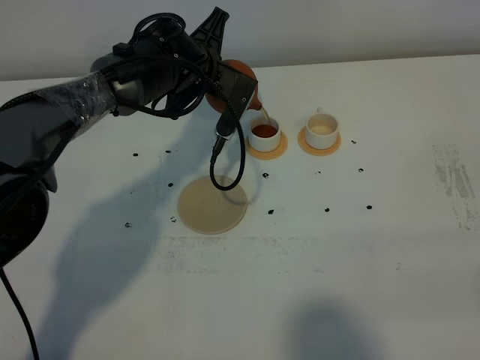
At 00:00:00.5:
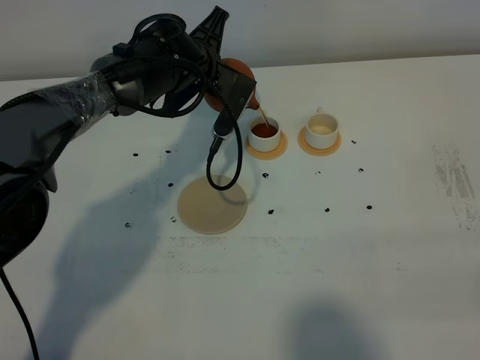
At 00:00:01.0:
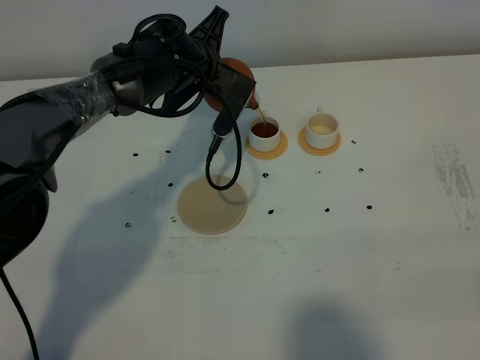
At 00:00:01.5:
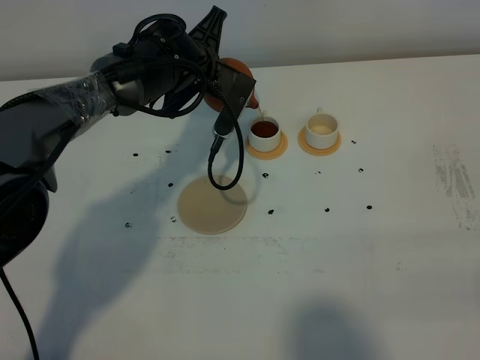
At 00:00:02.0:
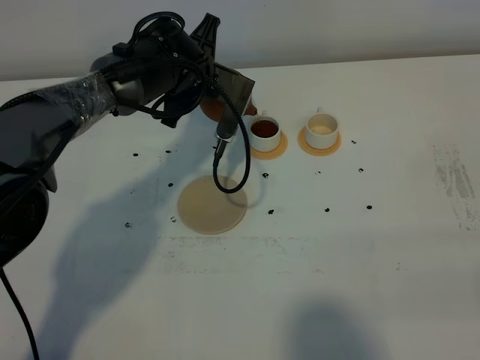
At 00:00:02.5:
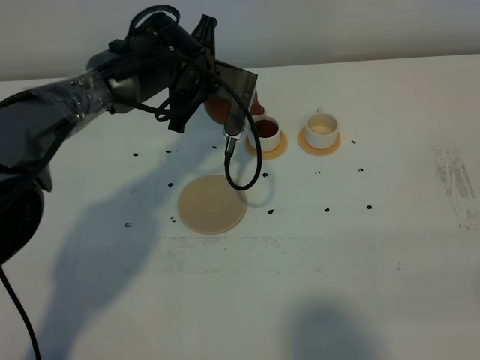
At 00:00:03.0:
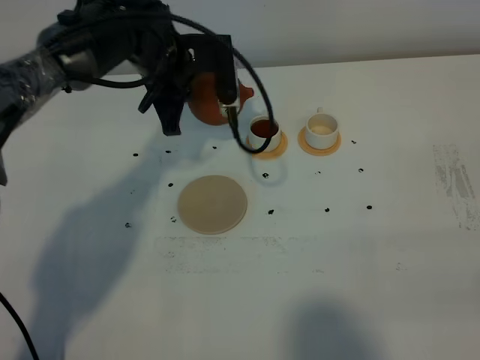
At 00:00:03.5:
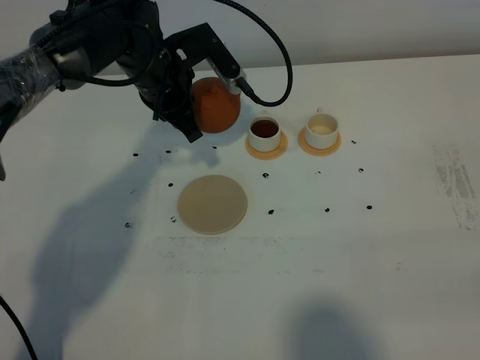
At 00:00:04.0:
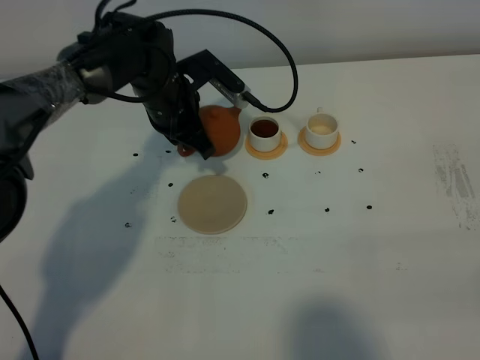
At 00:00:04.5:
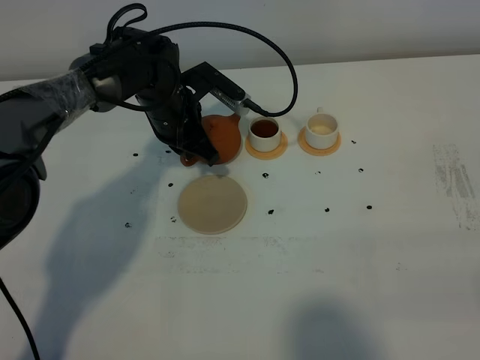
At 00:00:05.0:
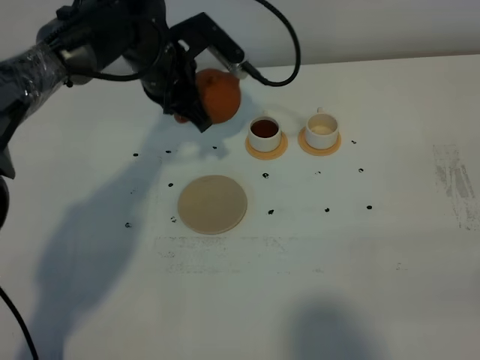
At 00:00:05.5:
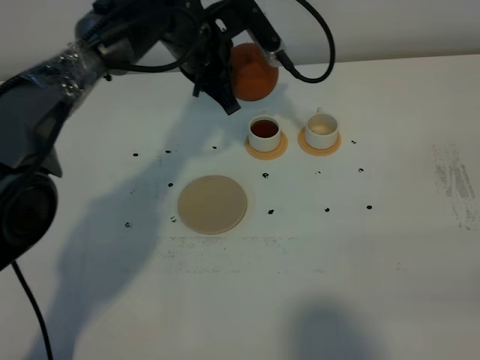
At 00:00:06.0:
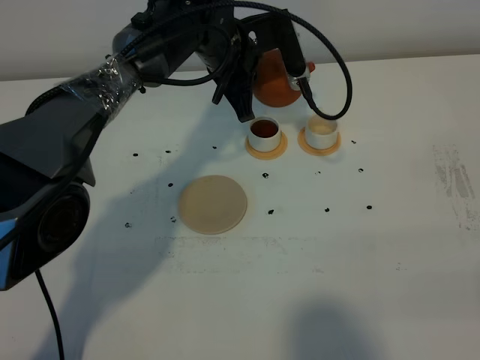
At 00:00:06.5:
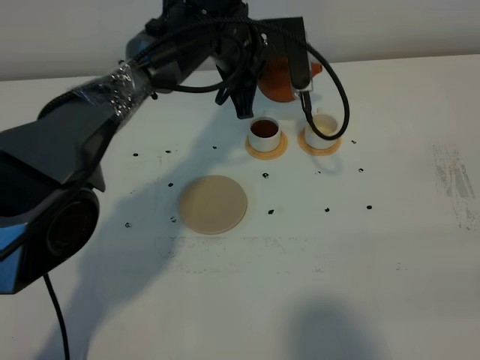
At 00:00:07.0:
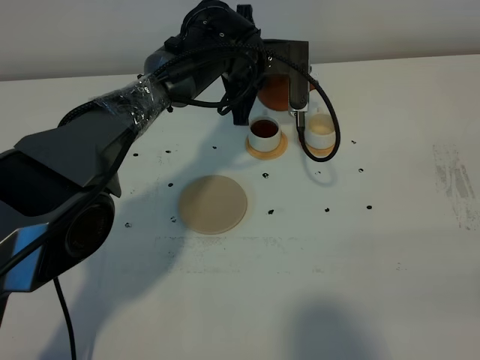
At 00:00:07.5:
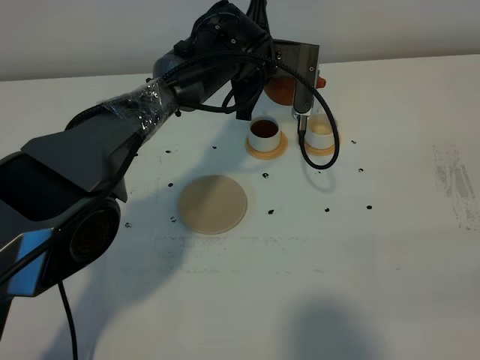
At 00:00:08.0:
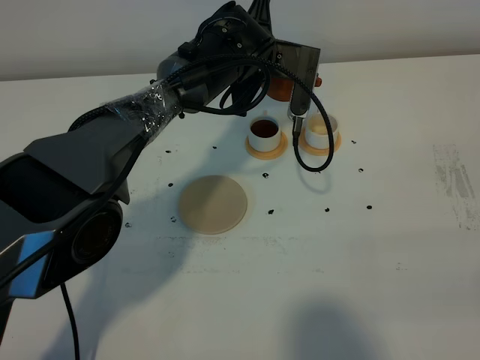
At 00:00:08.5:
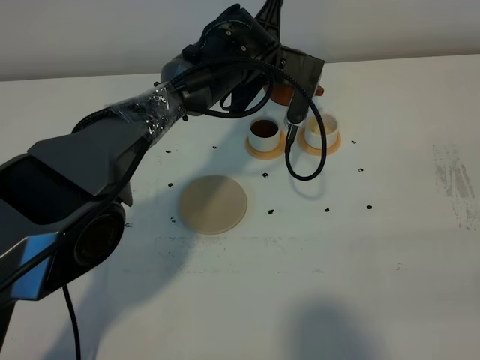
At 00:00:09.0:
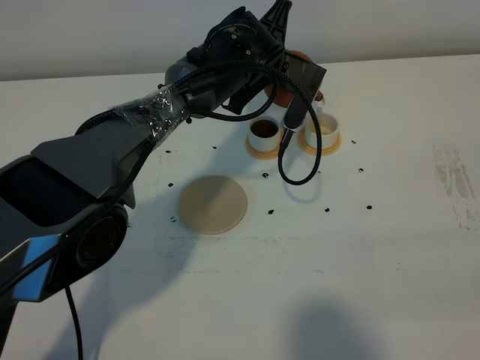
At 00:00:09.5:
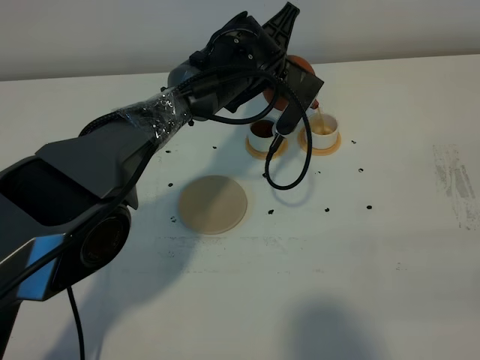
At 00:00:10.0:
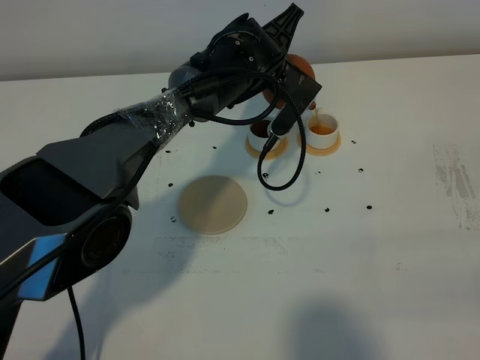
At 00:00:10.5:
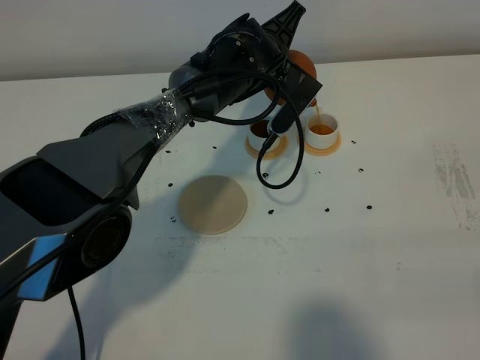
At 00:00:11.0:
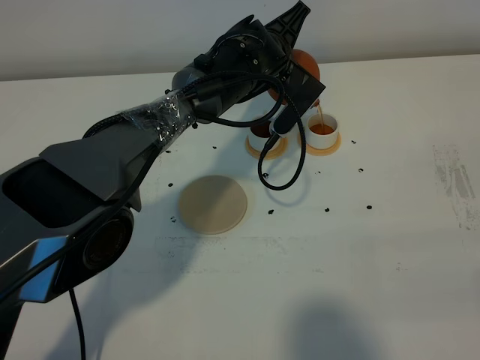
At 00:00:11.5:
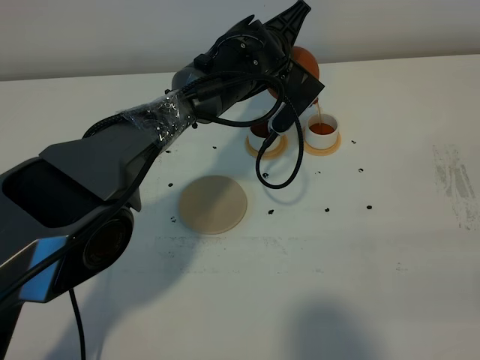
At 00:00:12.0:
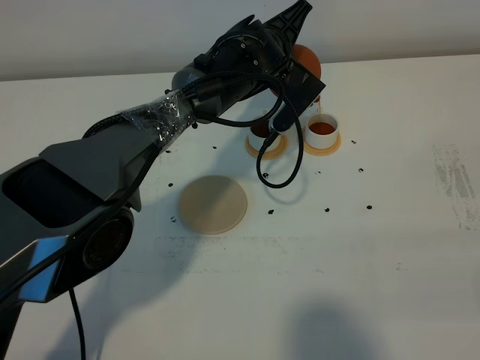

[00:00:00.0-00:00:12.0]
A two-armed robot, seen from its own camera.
Task of the whole recording: grasp the brown teapot and pour the tea into the two white teacups one by one, put the brown teapot back in its original place.
00:00:00.0 to 00:00:02.0: The grippers move only a little.
00:00:04.0 to 00:00:06.0: The left gripper travels to the right and upward by approximately 10 cm.
00:00:10.0 to 00:00:12.0: The grippers make only small movements.

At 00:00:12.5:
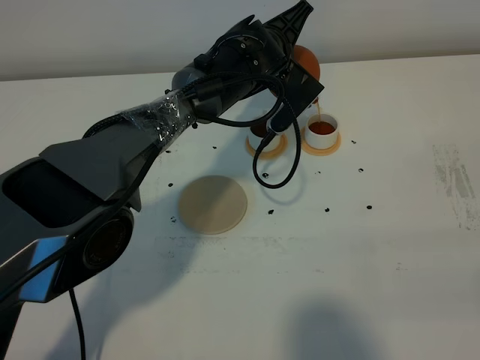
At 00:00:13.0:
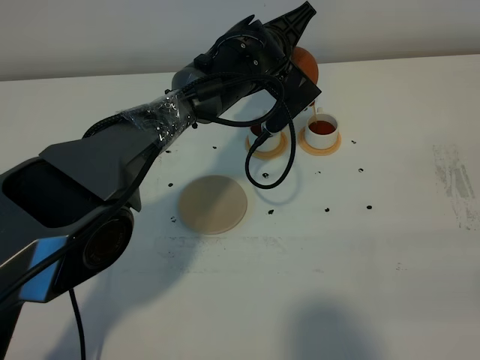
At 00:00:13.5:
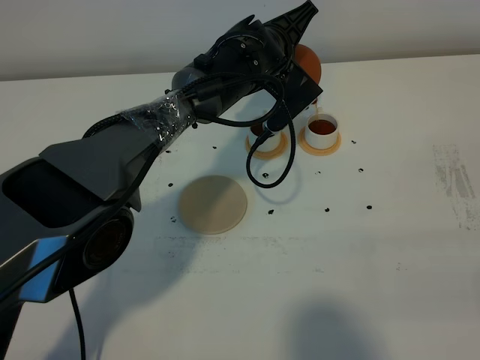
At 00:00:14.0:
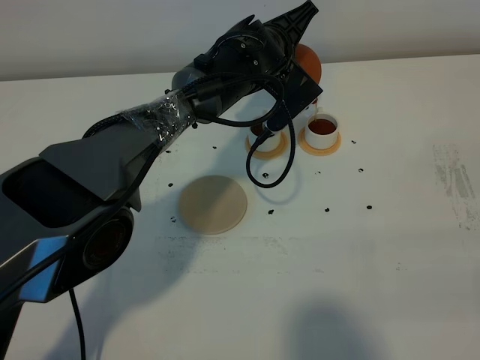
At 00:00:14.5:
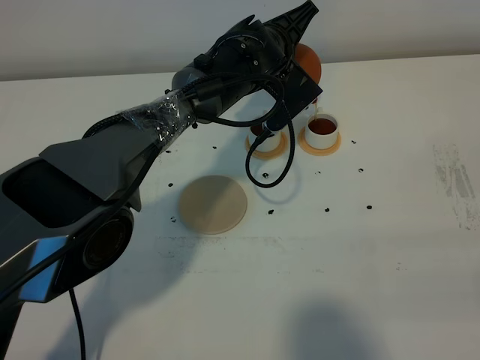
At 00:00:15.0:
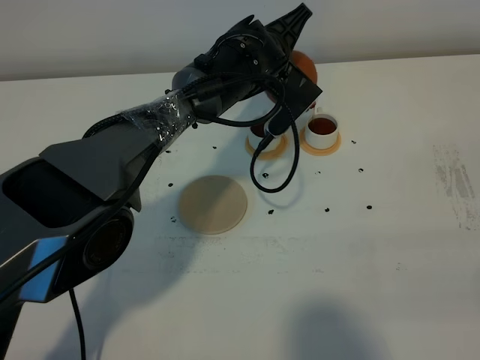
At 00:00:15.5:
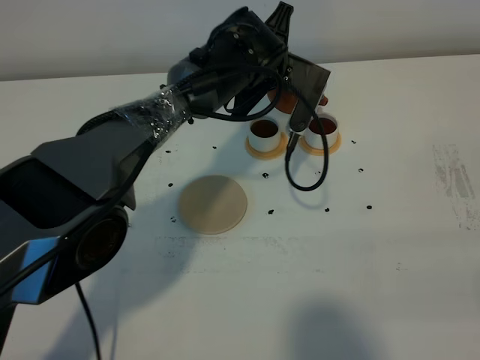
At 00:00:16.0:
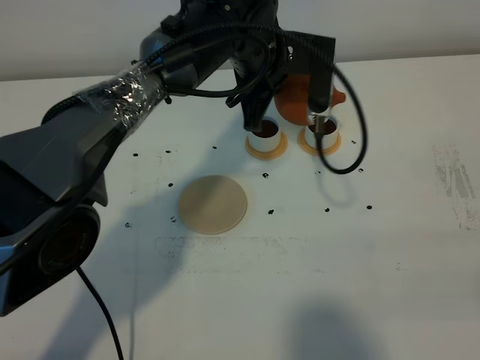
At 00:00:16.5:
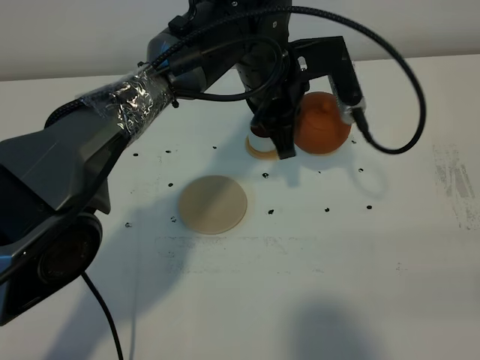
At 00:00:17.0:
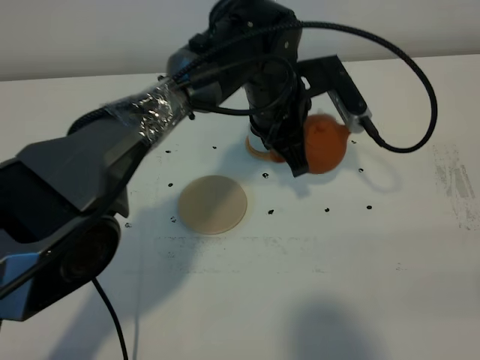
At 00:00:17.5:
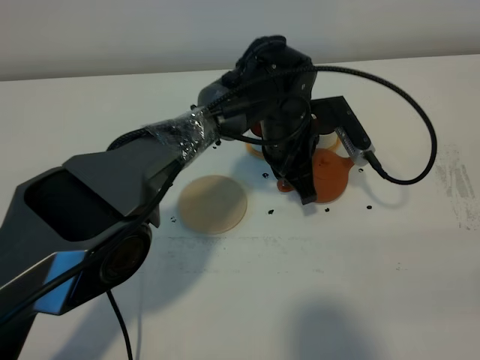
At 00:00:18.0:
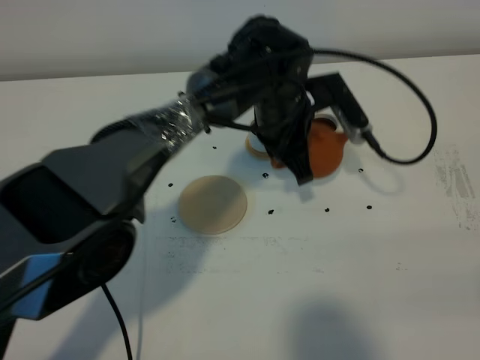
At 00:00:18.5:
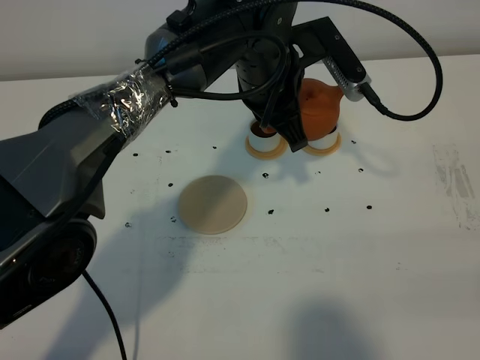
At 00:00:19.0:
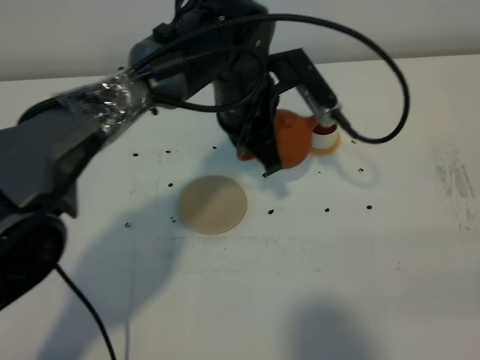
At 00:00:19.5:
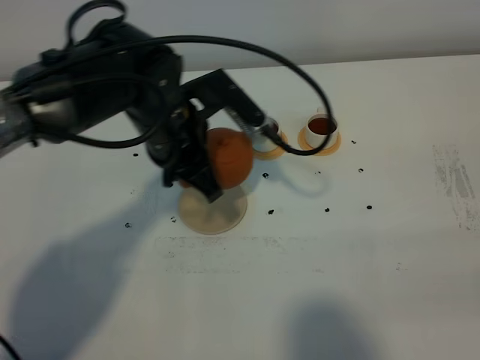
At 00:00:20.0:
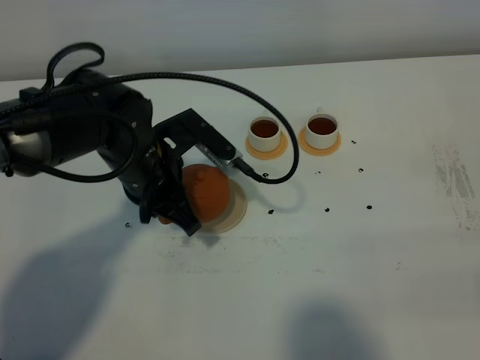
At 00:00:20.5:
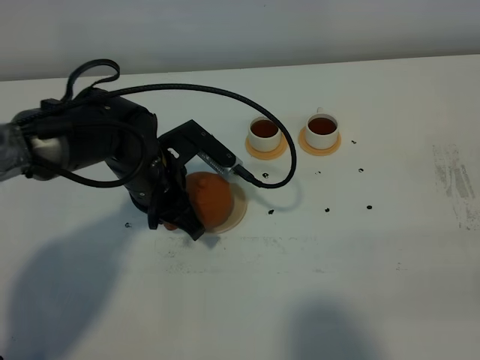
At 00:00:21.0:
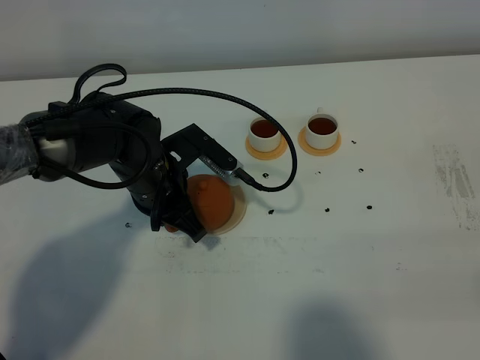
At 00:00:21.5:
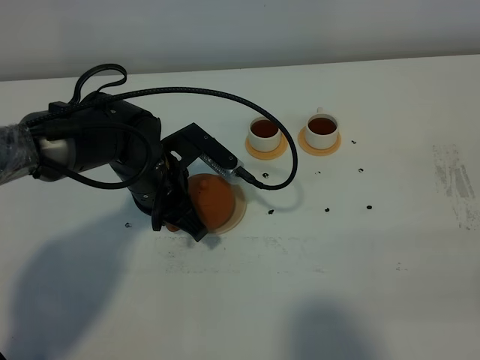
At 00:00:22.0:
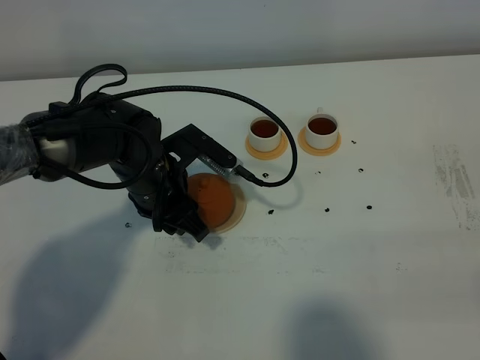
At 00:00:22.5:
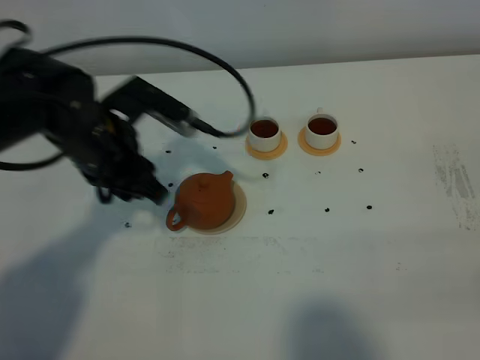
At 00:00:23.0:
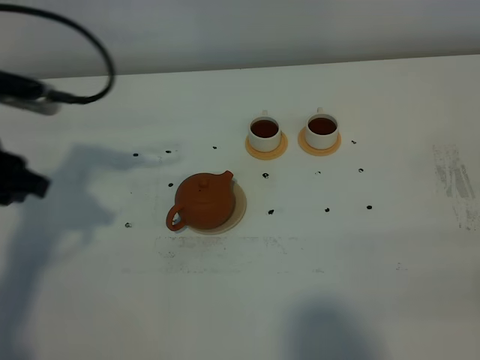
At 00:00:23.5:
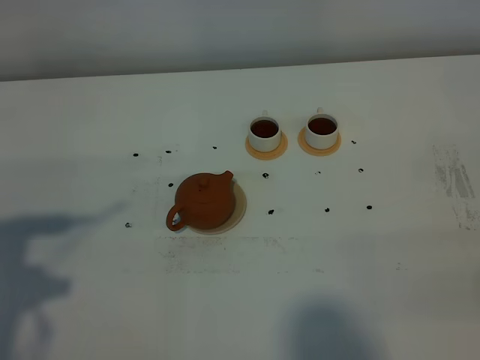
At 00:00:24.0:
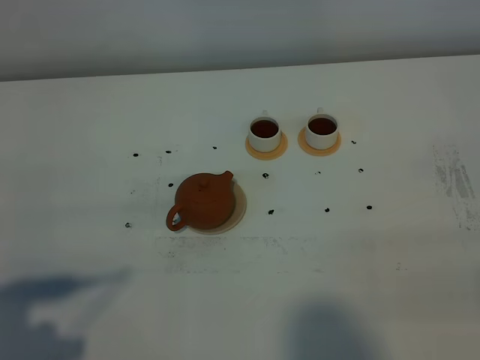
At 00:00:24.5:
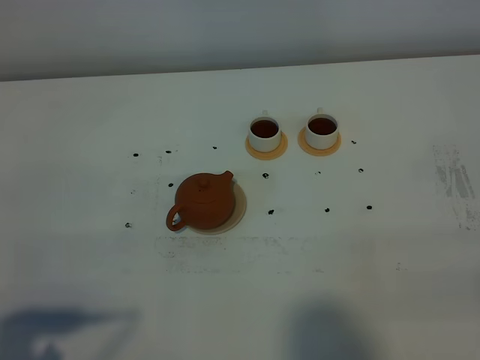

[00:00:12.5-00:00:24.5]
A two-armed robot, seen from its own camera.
Task of the whole recording: grasp the brown teapot and pour the tea into the two white teacups one by one, put the brown teapot back in its original place.
Step, 00:00:12.5 to 00:00:15.5: Pour tea into the teacup with the left gripper.
00:00:12.5 to 00:00:14.5: Both grippers stay put.
00:00:14.5 to 00:00:16.5: The left gripper heads backward, covering about 10 cm.
00:00:16.5 to 00:00:18.5: The left gripper reaches roughly 10 cm downward, then returns.
00:00:18.5 to 00:00:20.5: The left gripper moves to the left, downward and backward, approximately 20 cm.
00:00:20.5 to 00:00:22.5: The left gripper goes about 5 cm upward, and opens up.
00:00:22.5 to 00:00:24.5: The left gripper heads backward and to the left, covering approximately 30 cm.

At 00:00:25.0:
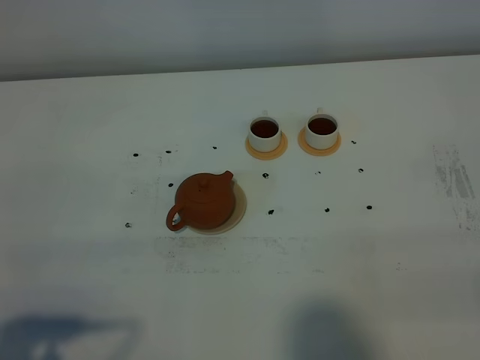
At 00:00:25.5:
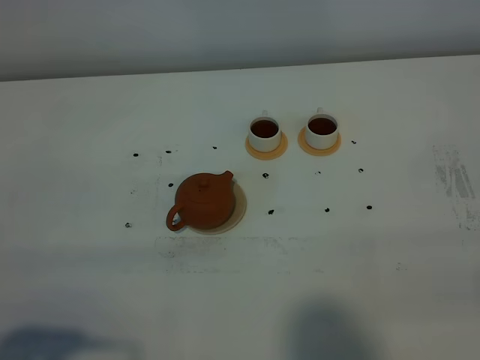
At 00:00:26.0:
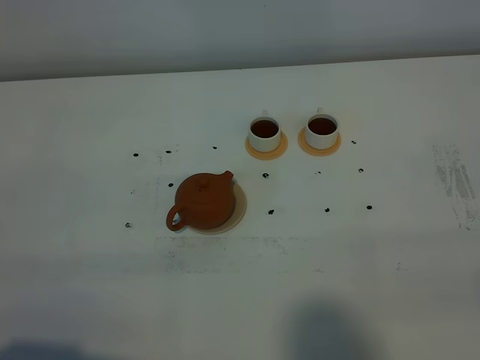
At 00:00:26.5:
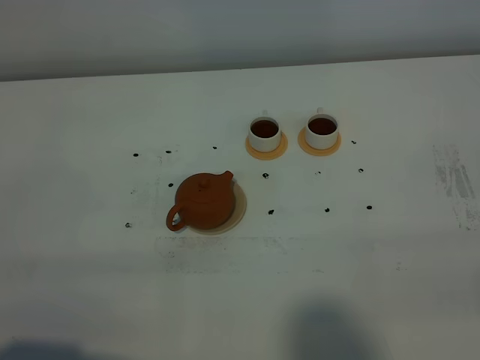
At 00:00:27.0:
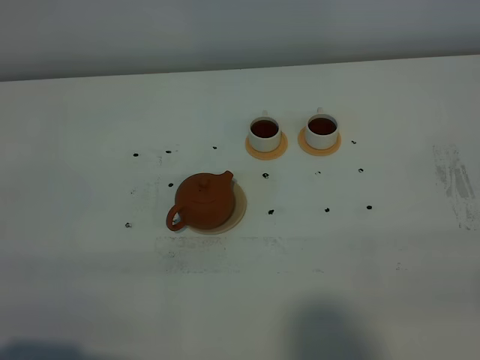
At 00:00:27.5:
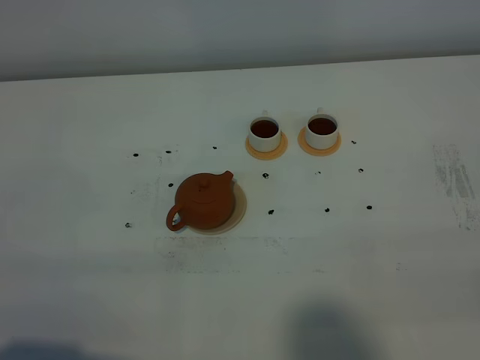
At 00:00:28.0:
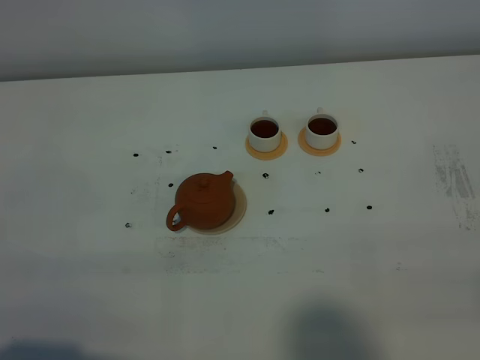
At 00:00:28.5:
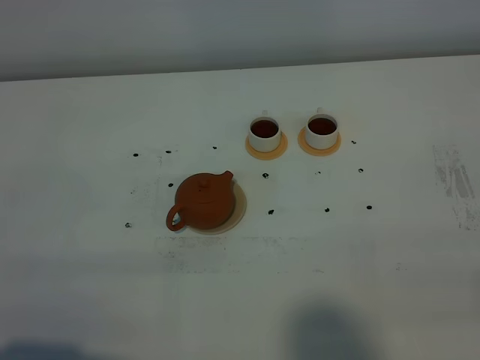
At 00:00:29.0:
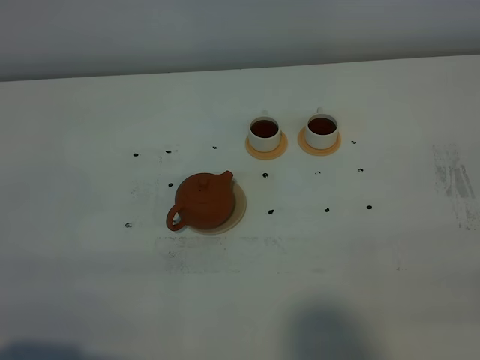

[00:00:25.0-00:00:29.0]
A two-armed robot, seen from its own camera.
Task of the whole recording: grasp the brown teapot and pour the tea into the two white teacups one by one, put the brown teapot back in its original place.
00:00:25.0 to 00:00:27.0: The grippers move only a little.
